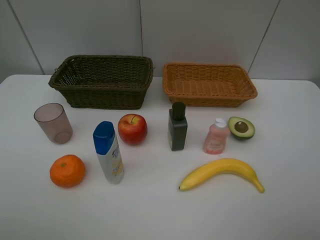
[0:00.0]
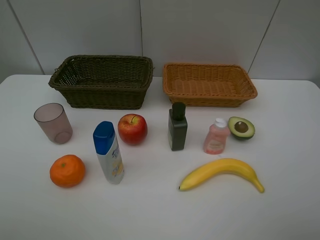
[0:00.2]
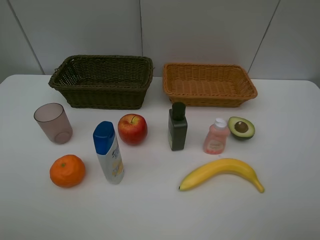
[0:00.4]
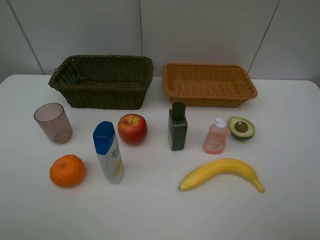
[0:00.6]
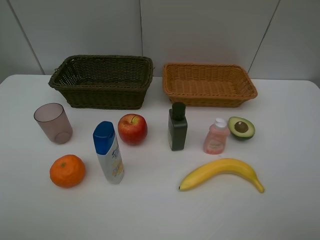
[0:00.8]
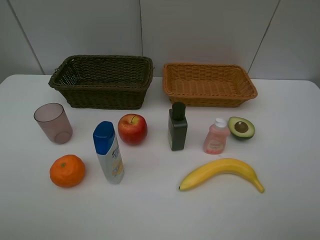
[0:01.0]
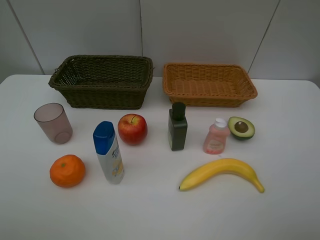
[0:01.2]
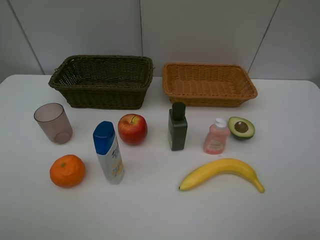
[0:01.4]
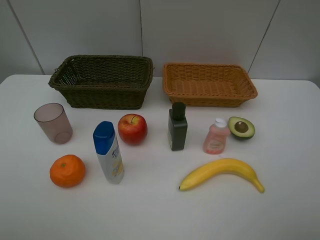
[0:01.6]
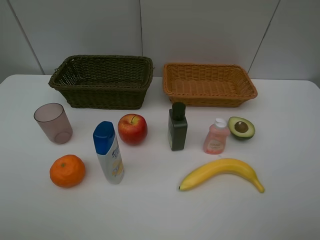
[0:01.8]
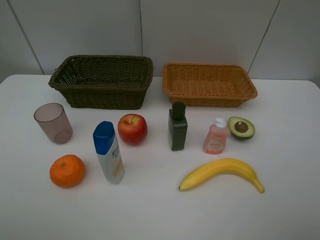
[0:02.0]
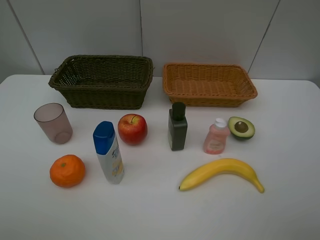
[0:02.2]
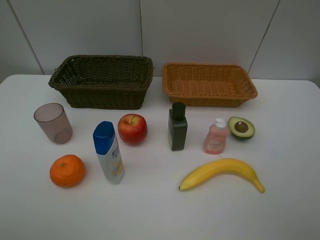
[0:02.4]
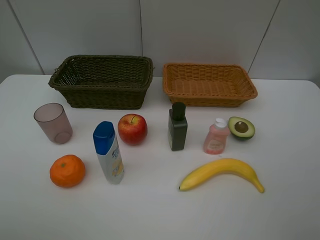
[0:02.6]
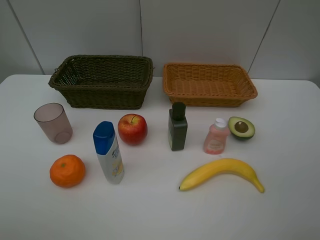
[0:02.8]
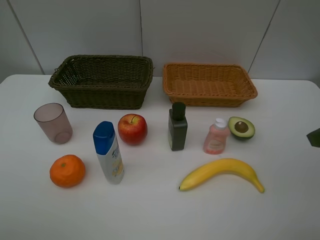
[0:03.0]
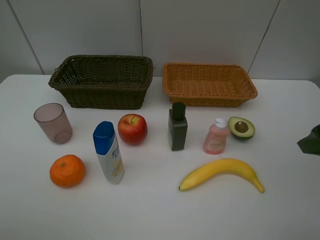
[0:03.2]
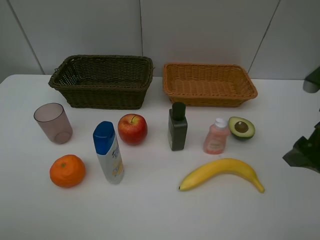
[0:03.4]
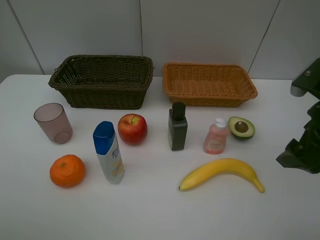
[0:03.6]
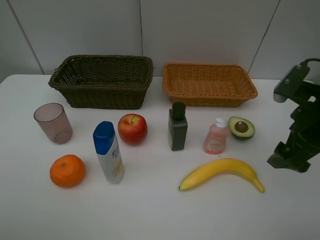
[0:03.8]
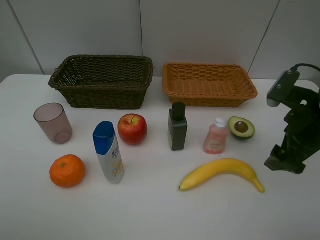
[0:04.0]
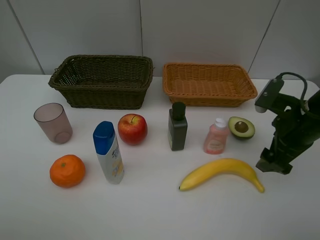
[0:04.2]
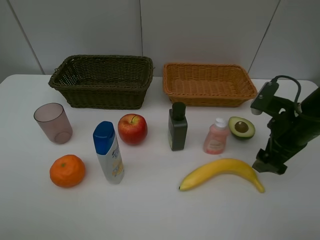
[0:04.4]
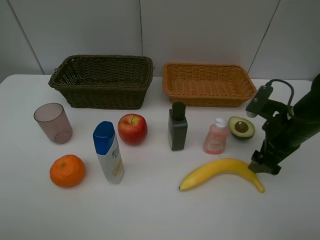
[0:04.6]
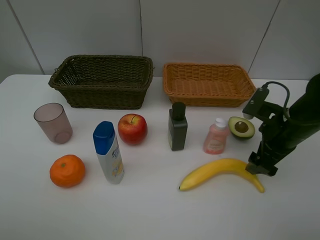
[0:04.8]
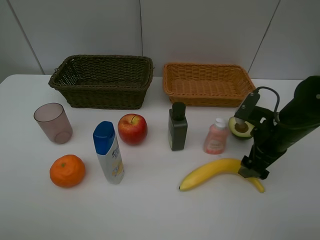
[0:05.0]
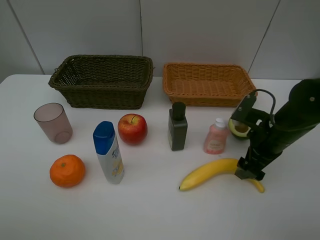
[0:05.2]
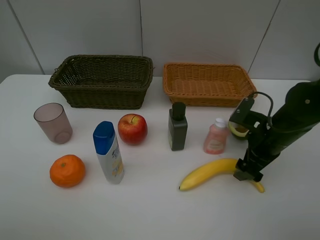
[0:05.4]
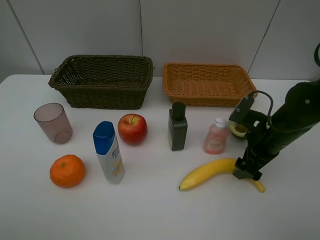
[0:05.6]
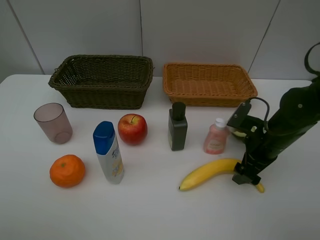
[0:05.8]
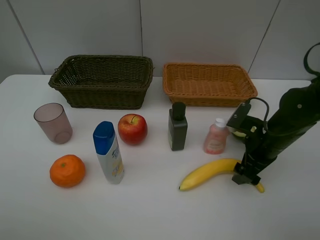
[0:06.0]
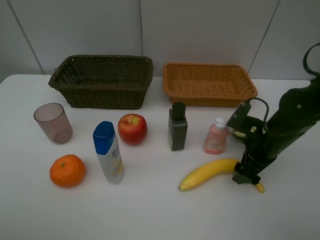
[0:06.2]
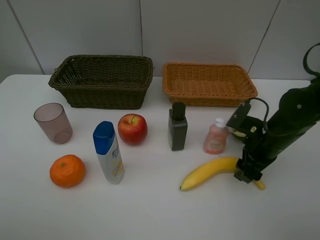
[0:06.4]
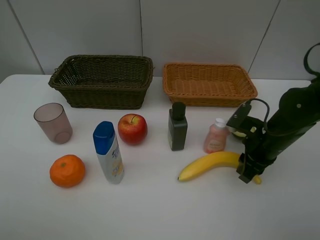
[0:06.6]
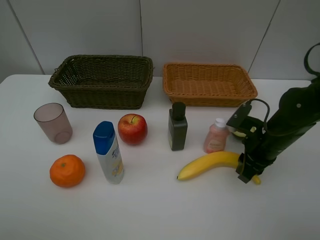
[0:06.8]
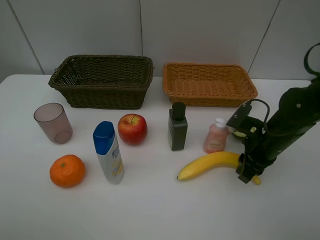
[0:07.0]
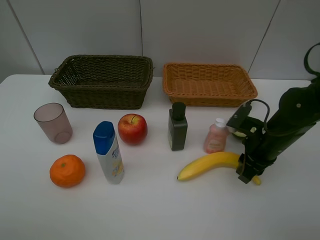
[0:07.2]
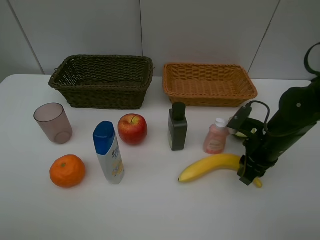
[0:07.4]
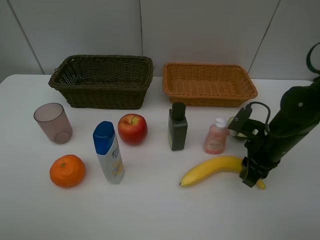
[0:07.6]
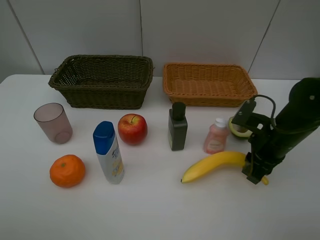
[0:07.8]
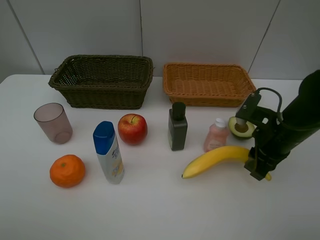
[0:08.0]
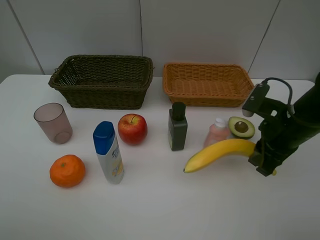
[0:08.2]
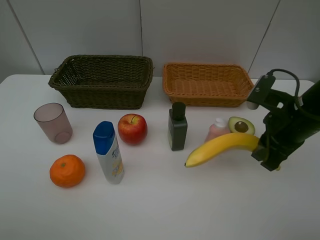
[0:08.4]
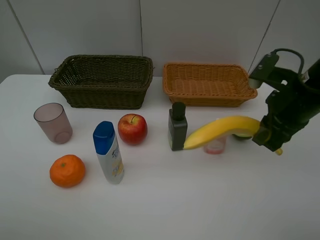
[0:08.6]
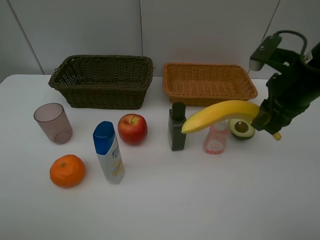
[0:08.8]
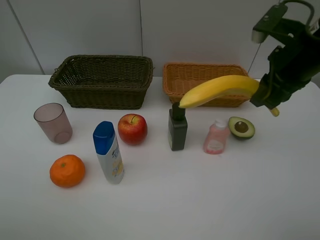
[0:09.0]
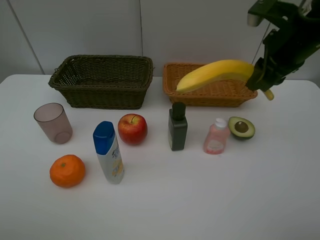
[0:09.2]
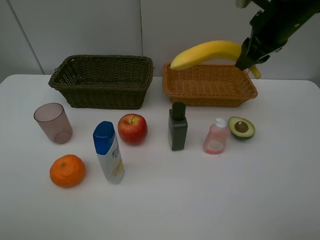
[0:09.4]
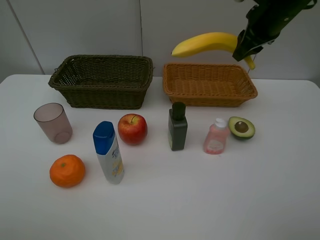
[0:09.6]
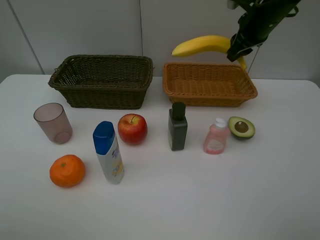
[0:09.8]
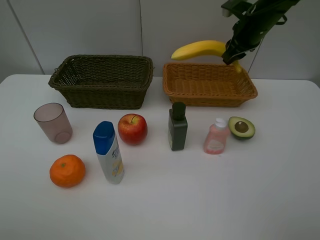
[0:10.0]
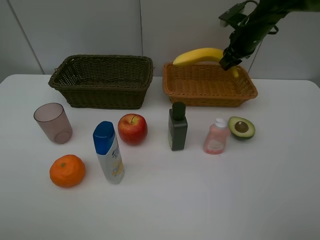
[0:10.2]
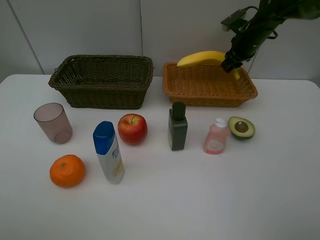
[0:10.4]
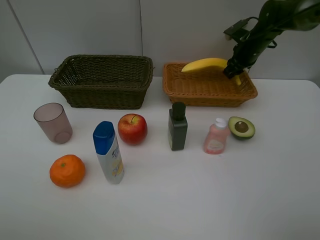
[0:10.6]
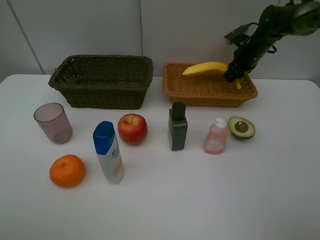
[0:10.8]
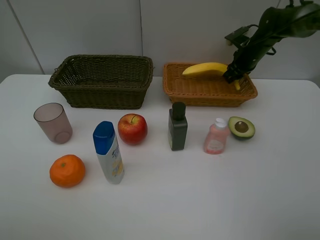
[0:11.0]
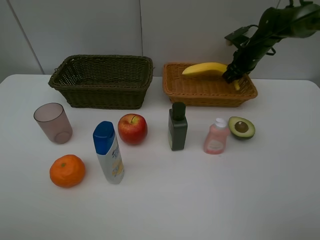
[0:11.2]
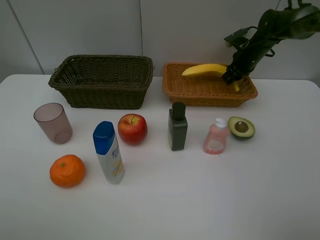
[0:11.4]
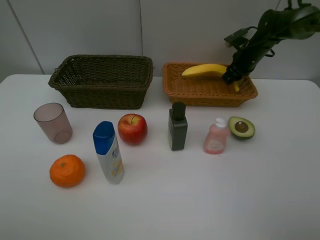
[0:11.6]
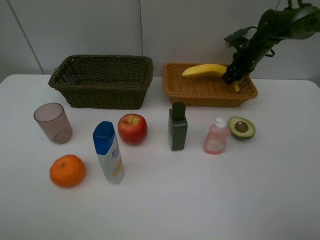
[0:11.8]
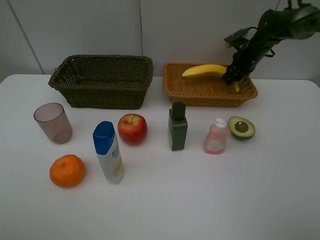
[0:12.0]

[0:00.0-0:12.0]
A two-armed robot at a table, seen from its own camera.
Task of the whole recording: Place multiple objects separately in different baskets.
Step, 0:00.0 to 0:07.8: Pick up banana with right gripper.
0:00.0 to 0:01.6: Both grippers stay put.
0:03.0 to 0:04.4: The right gripper shifts some 15 cm downward and forward.
0:04.4 to 0:06.0: The right gripper goes approximately 5 cm downward.
0:06.0 to 0:07.6: The right gripper closes.
0:07.6 to 0:09.0: The right gripper travels upward by roughly 15 cm.
0:09.0 to 0:10.4: The right gripper shifts about 25 cm forward.
0:10.4 to 0:12.0: The right gripper ends up some 5 cm from where it was.

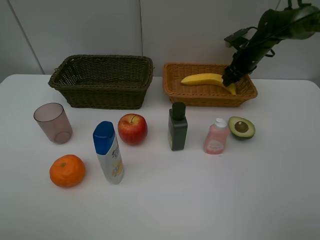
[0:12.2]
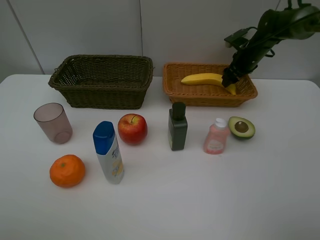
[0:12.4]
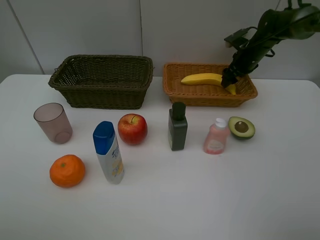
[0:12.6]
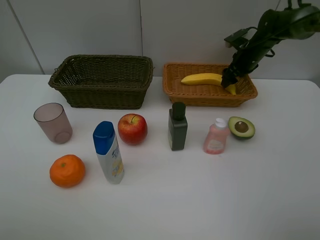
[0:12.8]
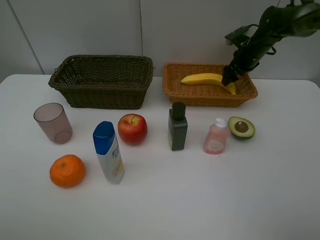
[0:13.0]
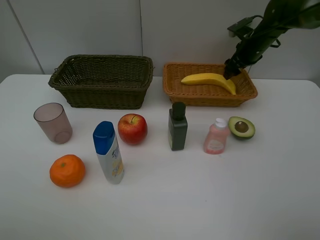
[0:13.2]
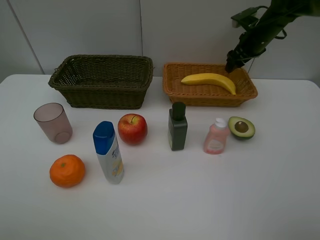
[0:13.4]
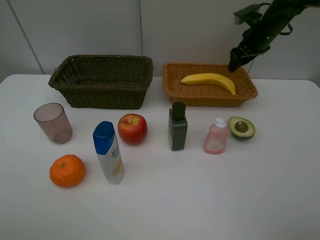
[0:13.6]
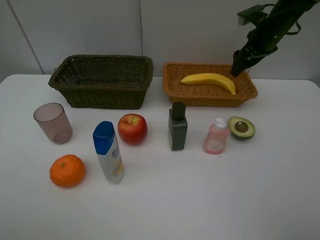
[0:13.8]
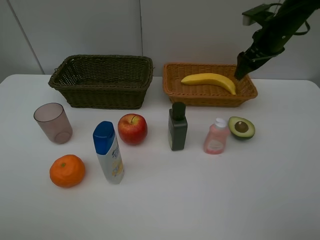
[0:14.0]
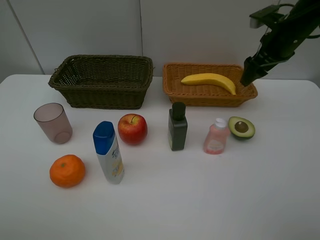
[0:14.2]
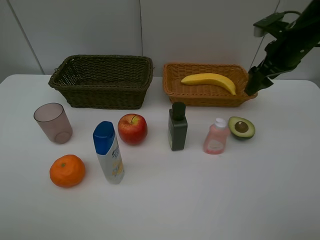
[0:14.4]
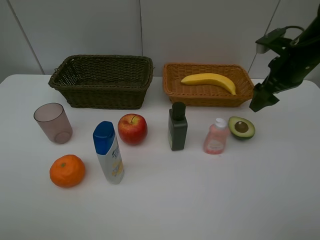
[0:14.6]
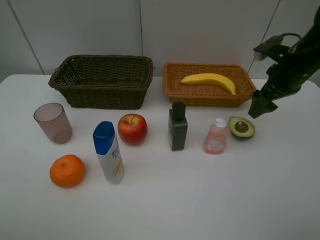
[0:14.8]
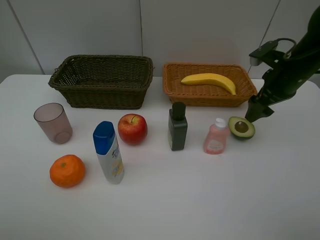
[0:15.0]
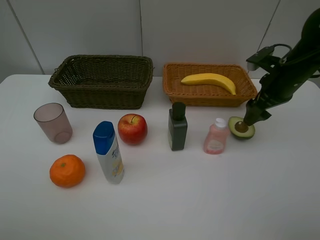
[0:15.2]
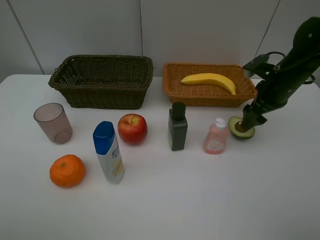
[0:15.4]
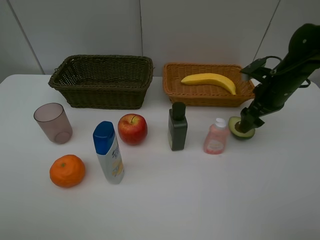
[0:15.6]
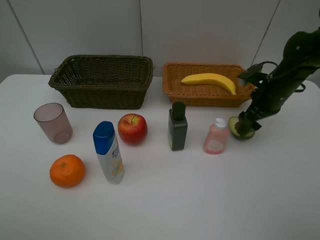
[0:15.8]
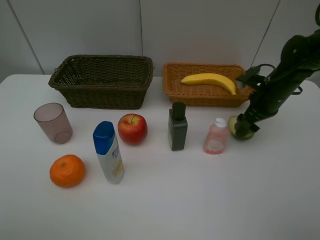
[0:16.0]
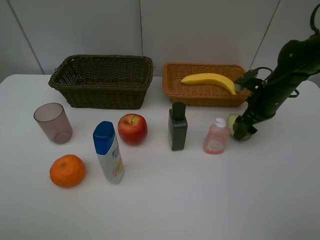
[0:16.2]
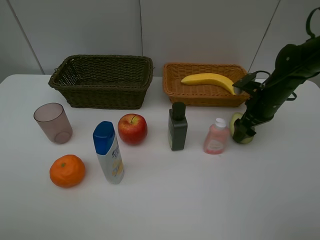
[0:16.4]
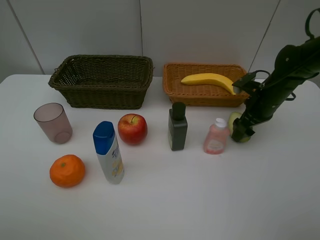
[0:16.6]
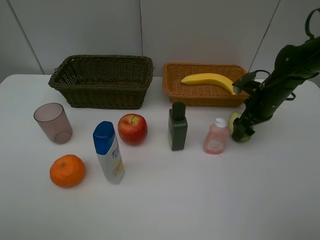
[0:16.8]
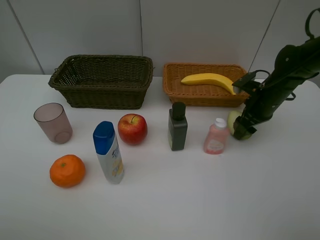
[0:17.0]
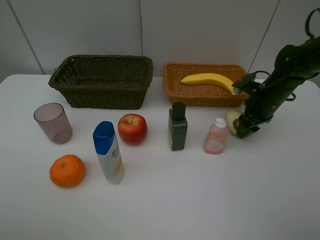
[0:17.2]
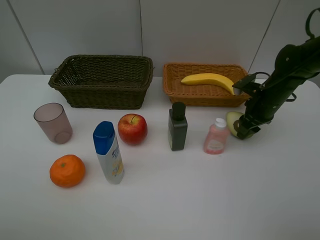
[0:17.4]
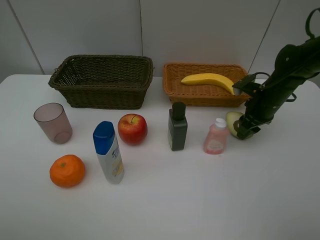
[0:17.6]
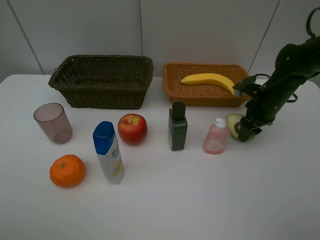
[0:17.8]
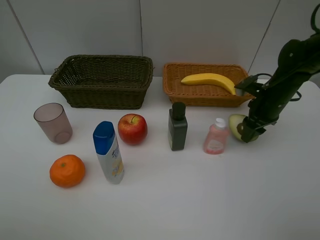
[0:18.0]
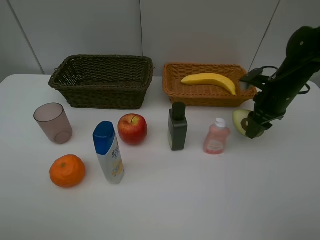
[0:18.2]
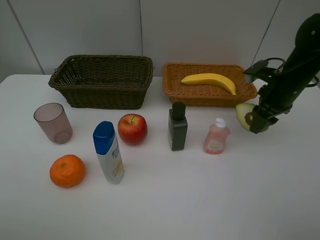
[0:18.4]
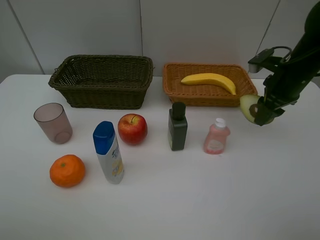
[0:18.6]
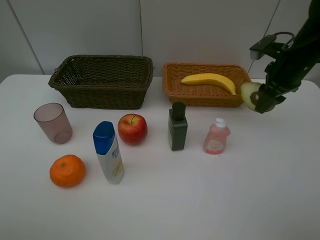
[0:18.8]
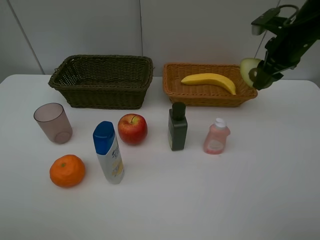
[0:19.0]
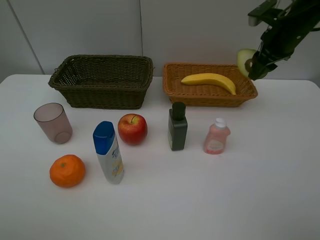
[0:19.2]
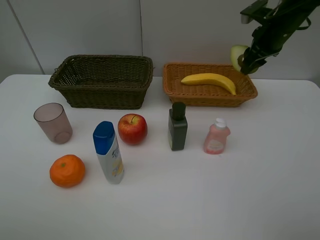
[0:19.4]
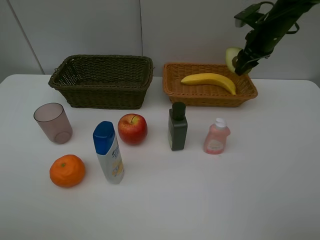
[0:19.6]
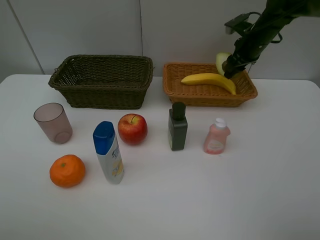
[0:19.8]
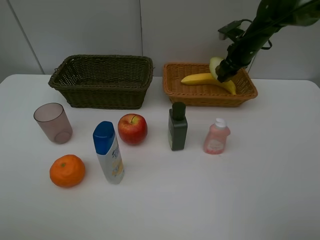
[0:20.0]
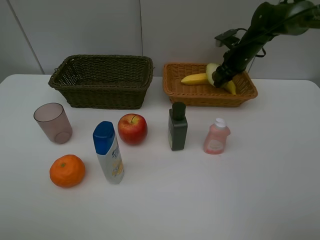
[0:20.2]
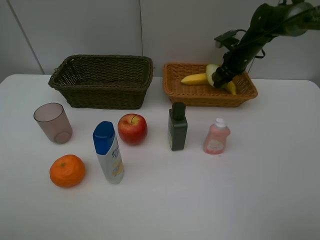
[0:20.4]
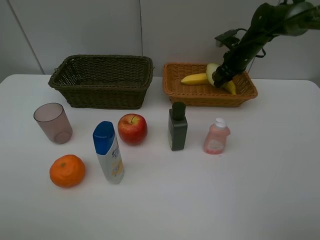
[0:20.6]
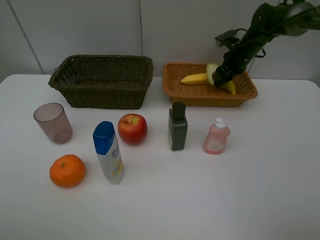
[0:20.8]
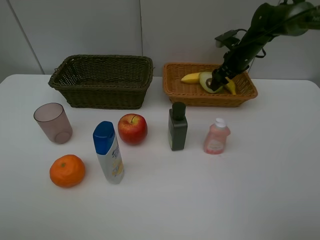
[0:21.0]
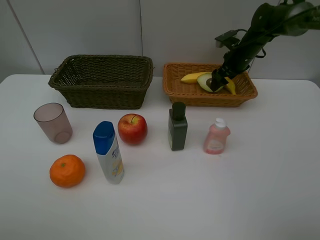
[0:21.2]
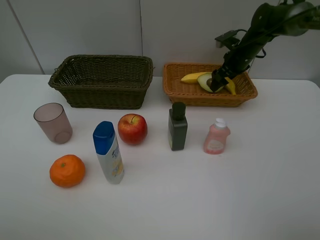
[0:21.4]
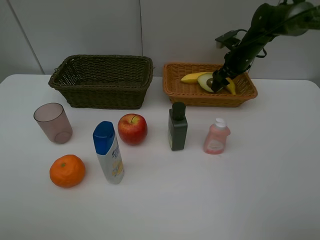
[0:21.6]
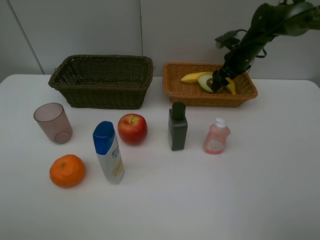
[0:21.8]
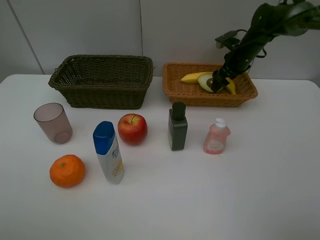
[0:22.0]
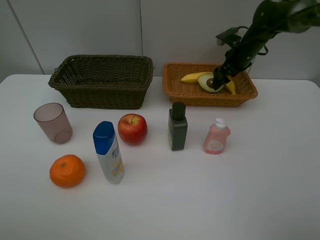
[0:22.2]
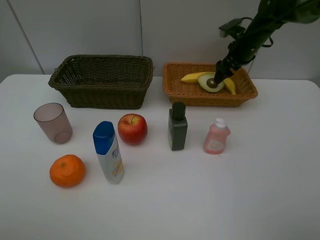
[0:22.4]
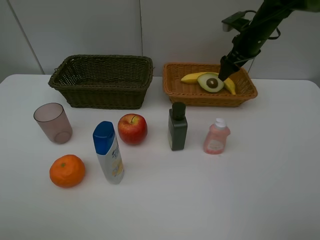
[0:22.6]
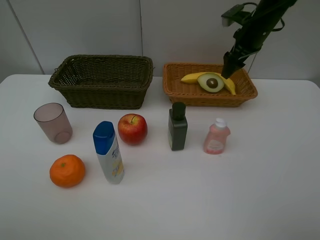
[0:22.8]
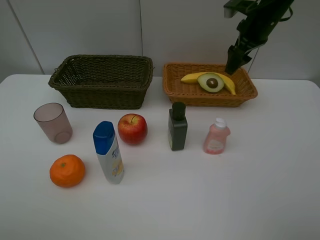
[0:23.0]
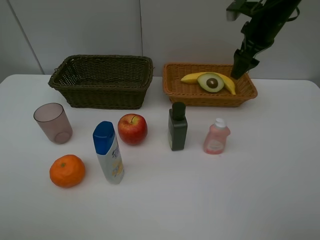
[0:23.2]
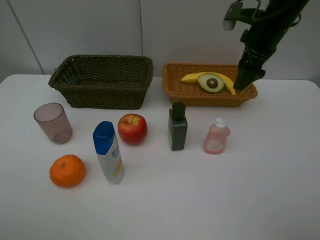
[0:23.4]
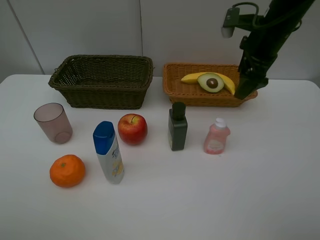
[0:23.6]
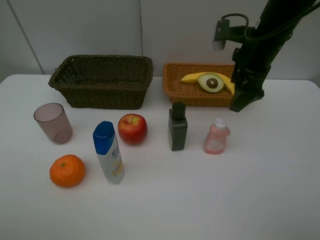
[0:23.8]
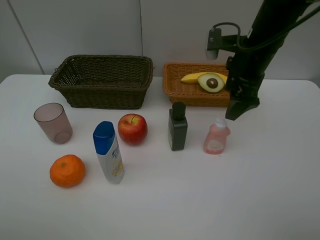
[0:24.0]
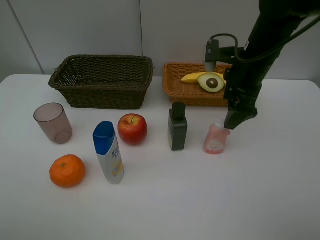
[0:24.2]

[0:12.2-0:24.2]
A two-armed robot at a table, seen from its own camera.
Task of the whole recording: Place multiple objects separately in different baskets.
Step, 0:13.4 to 0:18.2: Pick up the avocado with right gripper.
Step, 0:18.4 to 0:22.4: Place the avocado in the light basket with right gripper.
0:12.2 to 0:13.8: The right gripper is displaced upward and backward by roughly 10 cm, and opens its fingers.
0:13.8 to 0:15.2: The right gripper goes some 10 cm backward and downward.
0:15.2 to 0:16.6: The right gripper is displaced downward by some 5 cm.
0:16.6 to 0:18.2: The right gripper closes its fingers.
0:18.2 to 0:19.8: The right gripper heads forward, covering some 15 cm.
0:19.8 to 0:21.2: The right gripper opens its fingers.
0:21.2 to 0:22.6: The right gripper goes roughly 5 cm upward.
0:22.6 to 0:24.2: The right gripper heads backward, covering roughly 15 cm.
